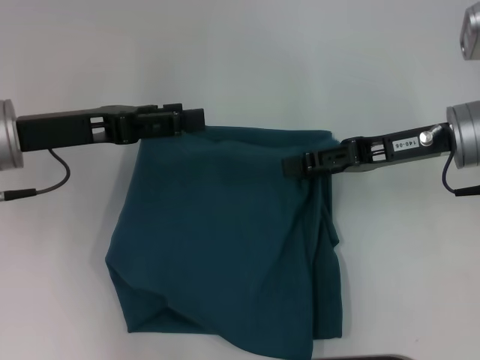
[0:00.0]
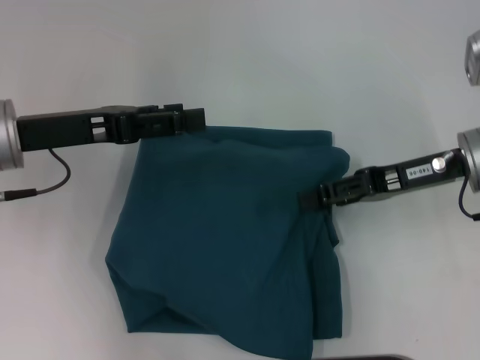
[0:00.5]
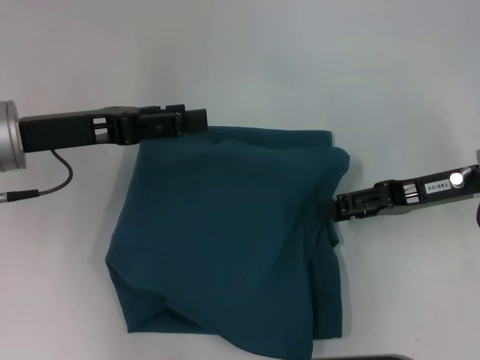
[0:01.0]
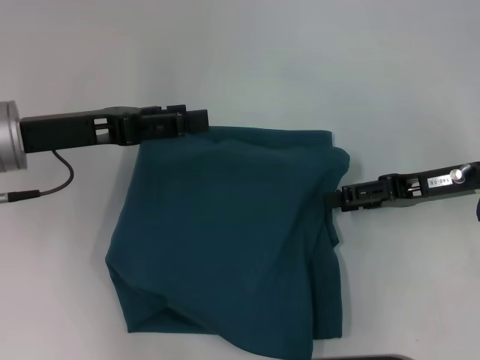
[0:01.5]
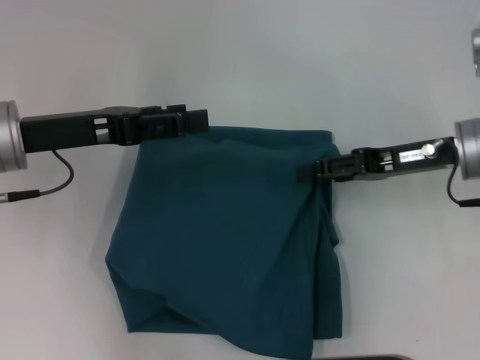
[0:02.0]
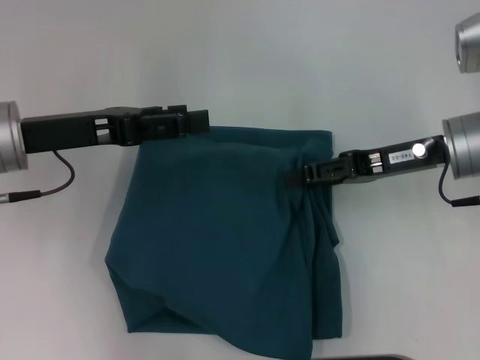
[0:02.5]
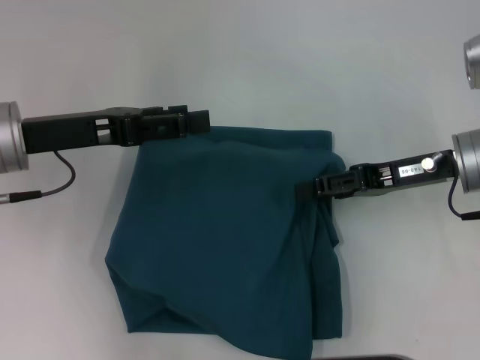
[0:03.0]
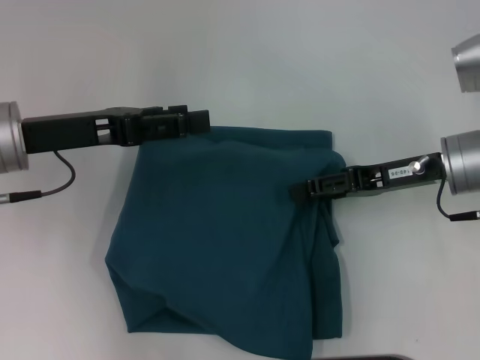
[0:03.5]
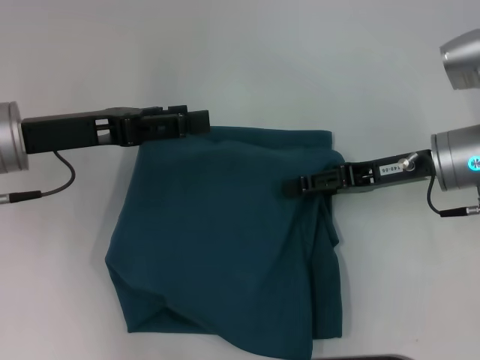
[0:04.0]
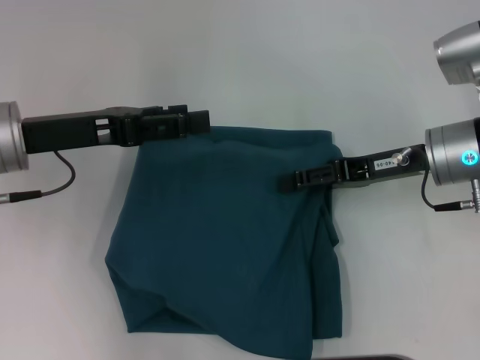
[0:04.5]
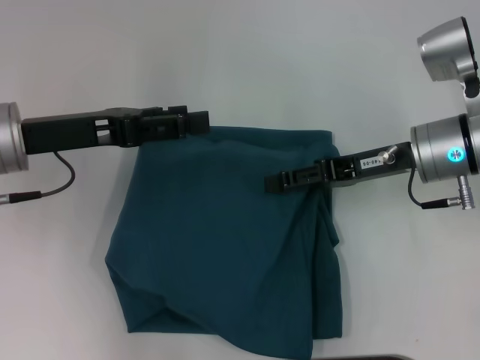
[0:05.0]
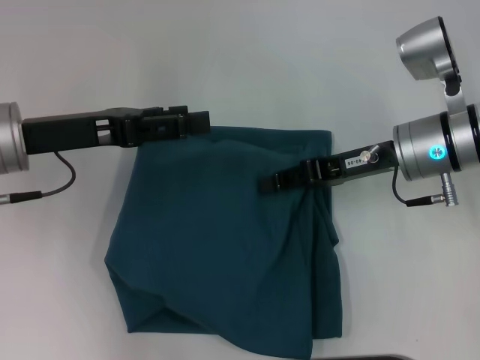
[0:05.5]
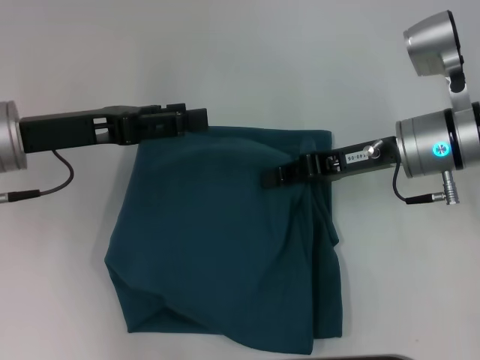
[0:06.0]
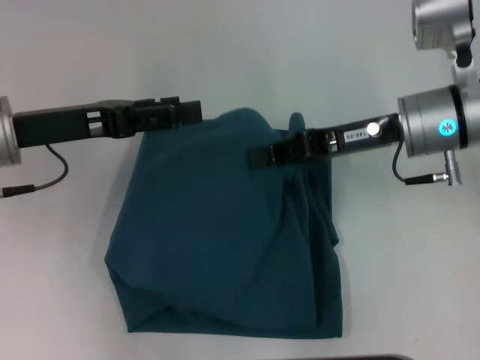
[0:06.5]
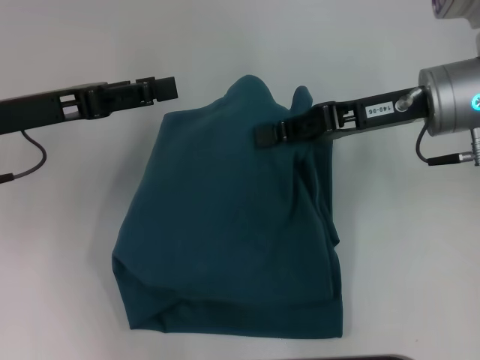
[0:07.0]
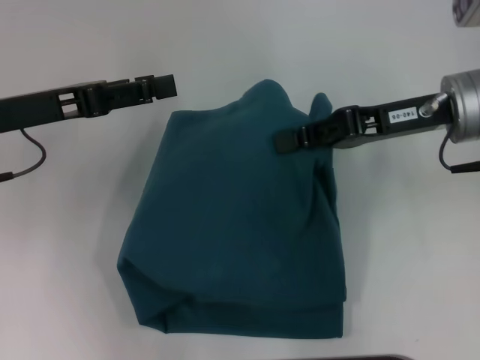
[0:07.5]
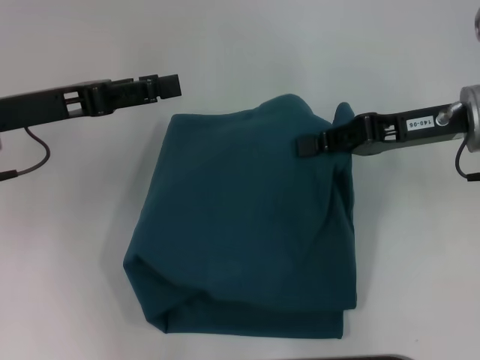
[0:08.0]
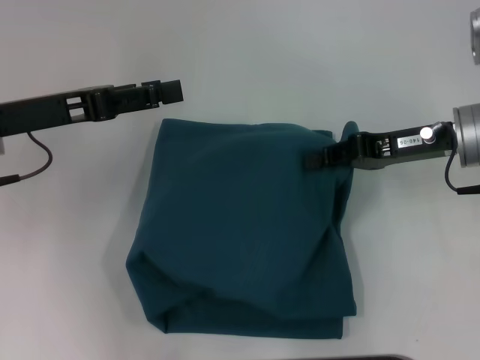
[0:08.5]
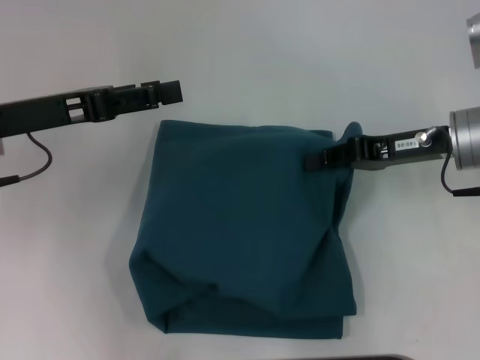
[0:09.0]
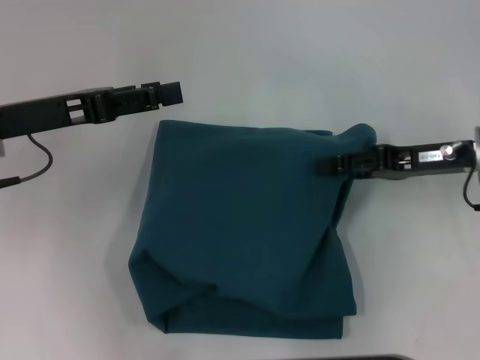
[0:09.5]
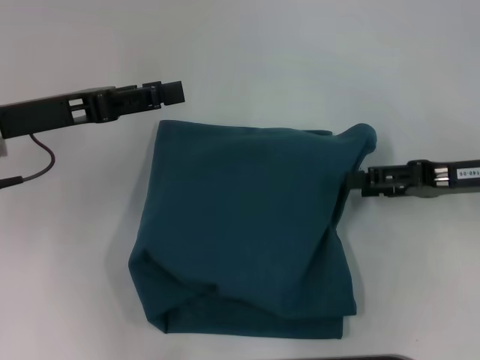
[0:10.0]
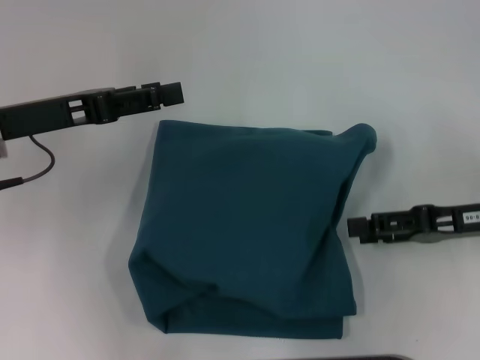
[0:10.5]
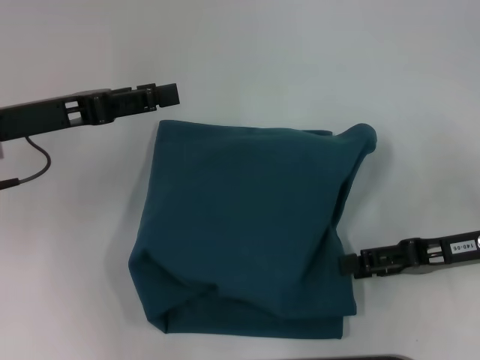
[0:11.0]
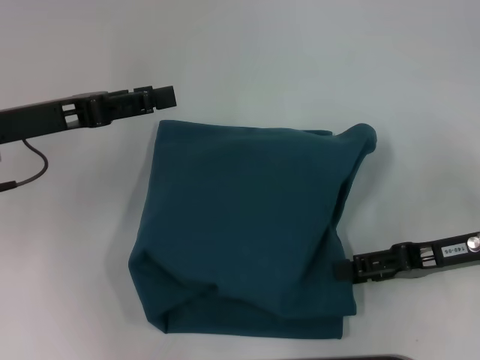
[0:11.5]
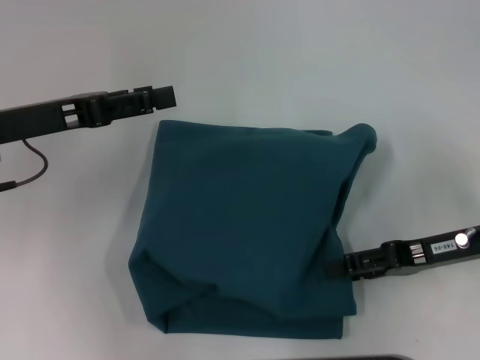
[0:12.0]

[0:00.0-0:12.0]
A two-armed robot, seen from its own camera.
0:00.0 to 0:04.0: The grippers move only a little.
0:04.0 to 0:06.0: The right gripper closes.
0:06.0 to 0:08.0: The right gripper changes place by about 5 cm.
0:08.0 to 0:10.0: The right gripper goes approximately 5 cm to the right, and opens its fingers.
0:10.0 to 0:12.0: The right gripper changes place by some 5 cm.

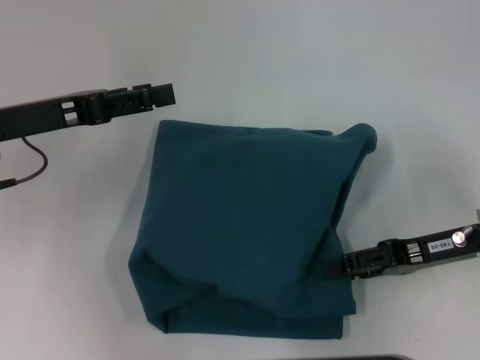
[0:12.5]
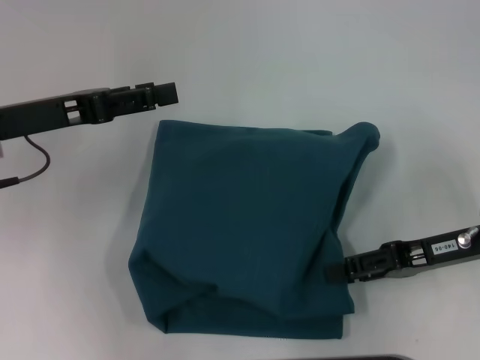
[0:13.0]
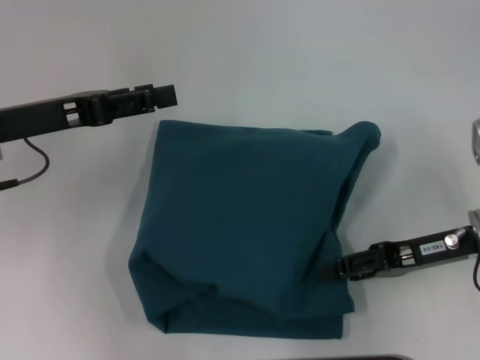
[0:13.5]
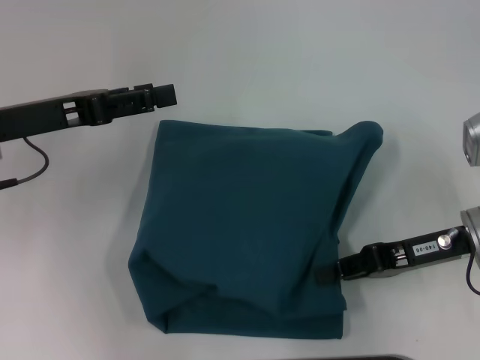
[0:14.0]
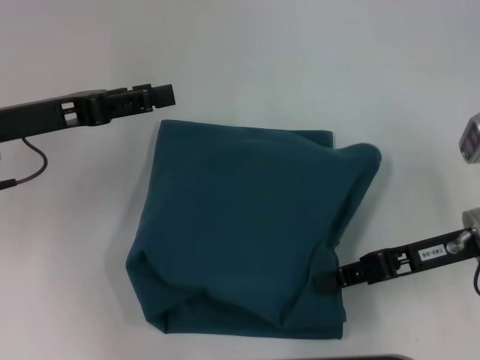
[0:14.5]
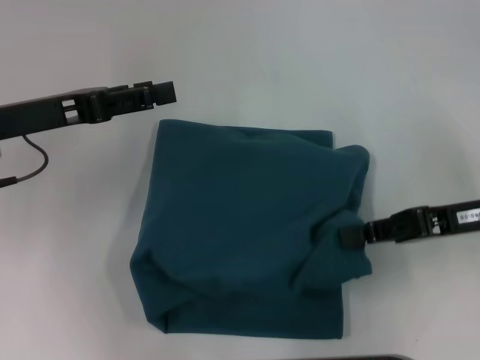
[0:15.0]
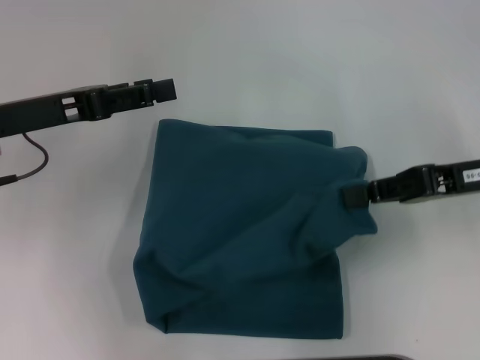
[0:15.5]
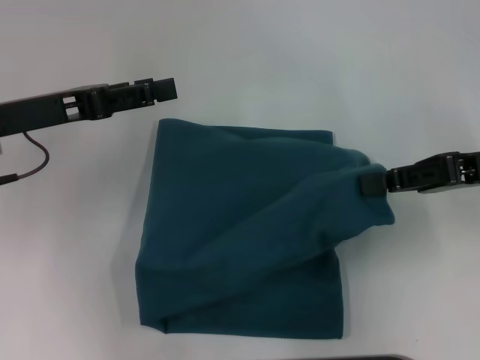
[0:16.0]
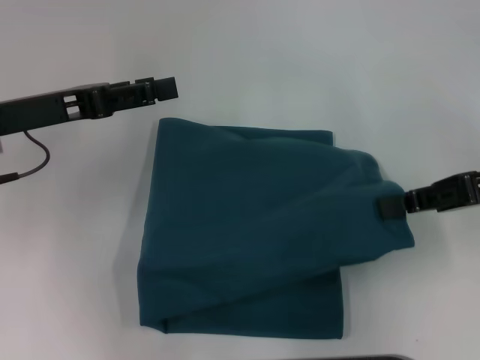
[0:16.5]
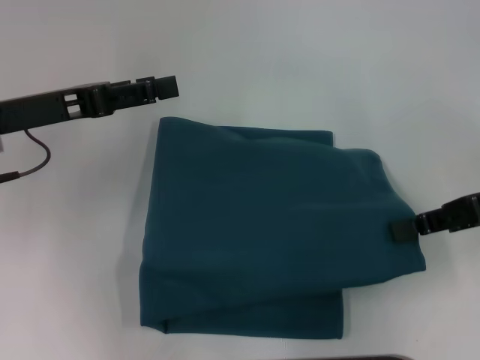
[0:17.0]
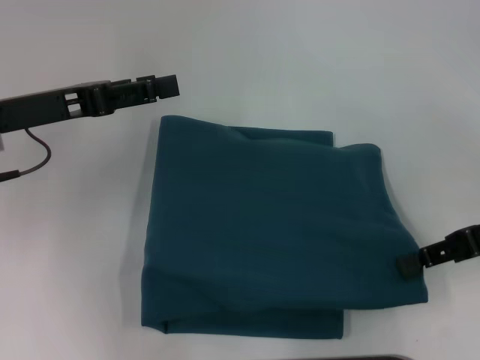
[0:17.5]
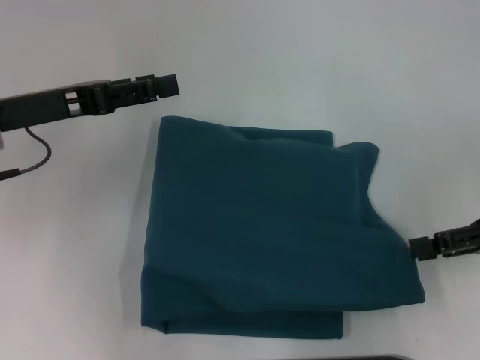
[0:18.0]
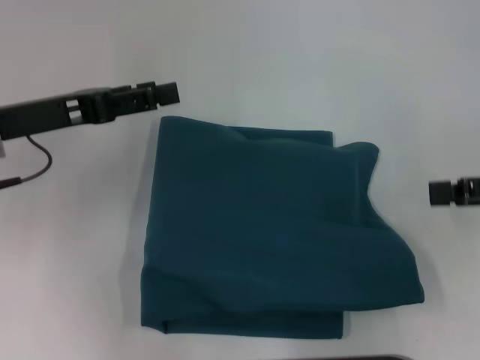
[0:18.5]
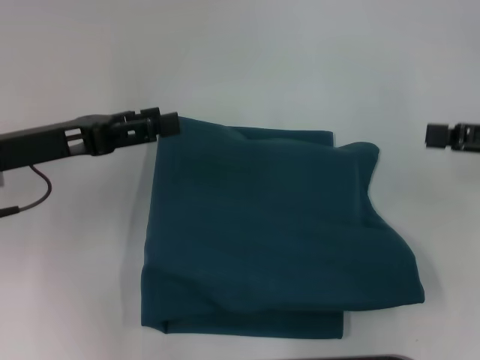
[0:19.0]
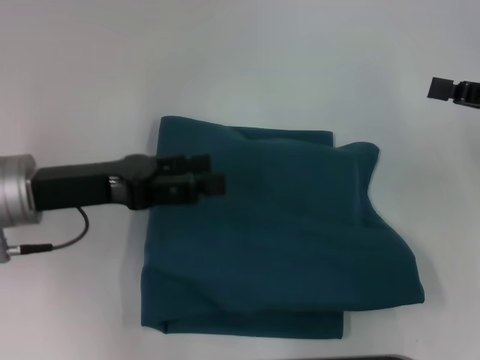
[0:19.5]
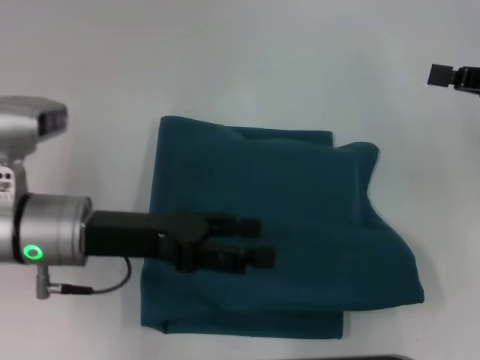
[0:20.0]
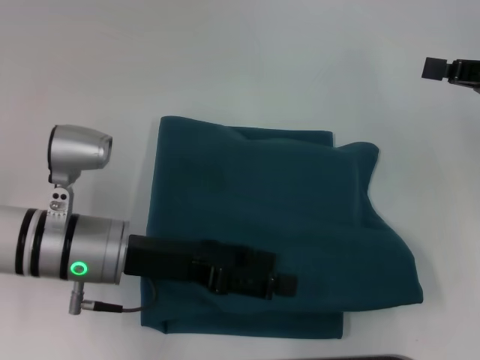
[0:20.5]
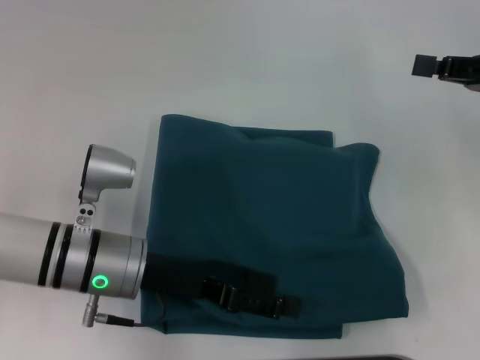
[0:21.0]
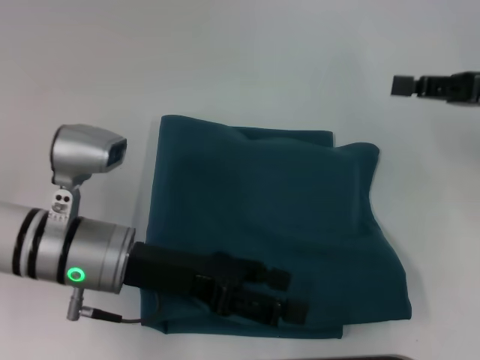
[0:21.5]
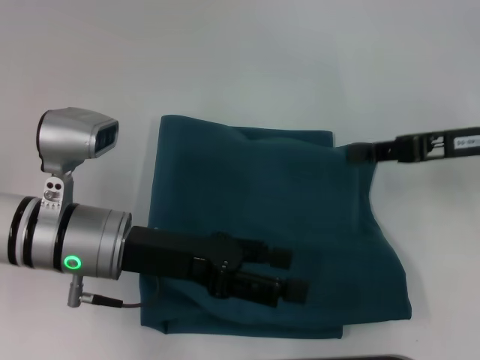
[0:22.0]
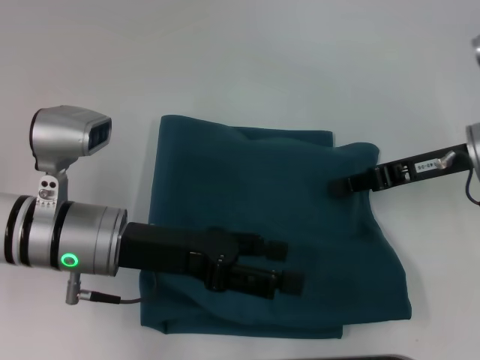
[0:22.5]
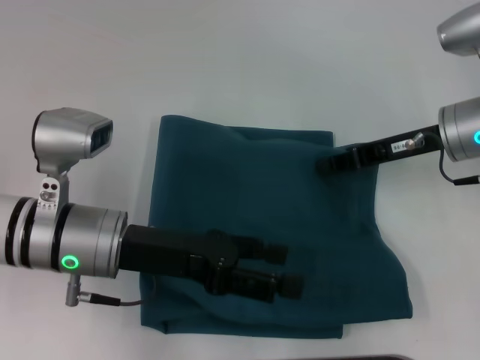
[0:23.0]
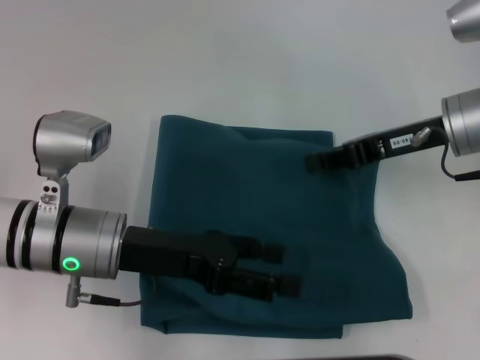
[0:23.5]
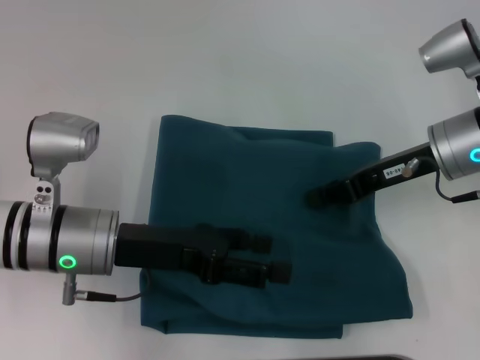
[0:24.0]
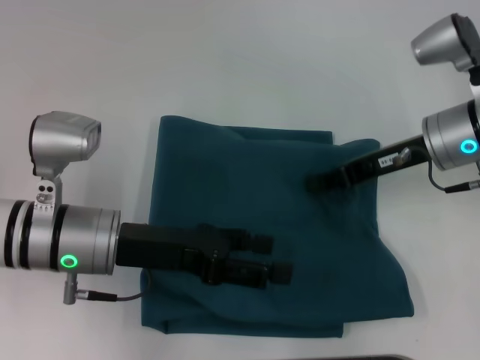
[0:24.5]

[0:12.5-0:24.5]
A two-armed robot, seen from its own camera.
0:12.5 to 0:14.5: The right gripper closes up.
0:14.5 to 0:16.5: The right gripper goes approximately 10 cm to the right and upward.
0:16.5 to 0:18.5: The right gripper is displaced to the right by roughly 5 cm, and opens up.
0:18.5 to 0:20.5: The right gripper ends up about 5 cm from where it was, and closes up; the left gripper travels to the right, downward and backward by roughly 15 cm.
0:20.5 to 0:22.5: The right gripper goes approximately 10 cm to the left and downward.
0:22.5 to 0:24.5: There are only small adjustments of the grippers.

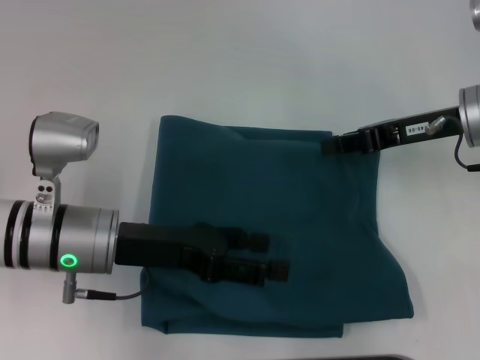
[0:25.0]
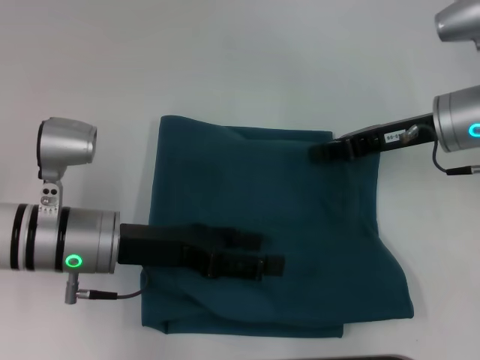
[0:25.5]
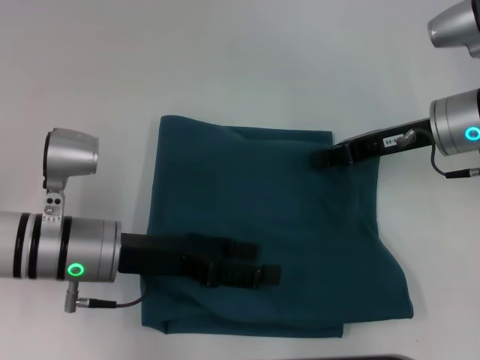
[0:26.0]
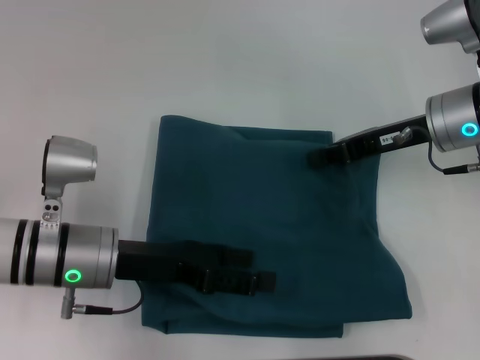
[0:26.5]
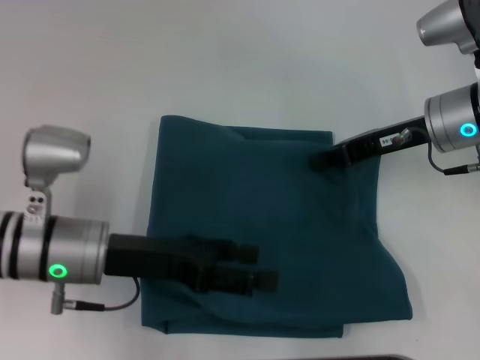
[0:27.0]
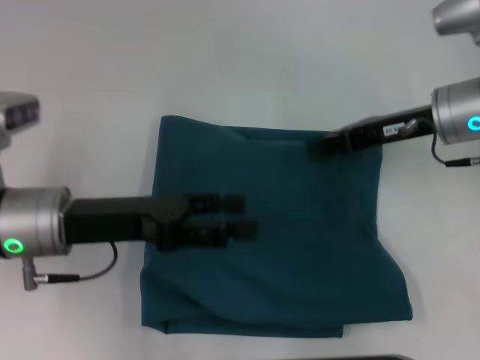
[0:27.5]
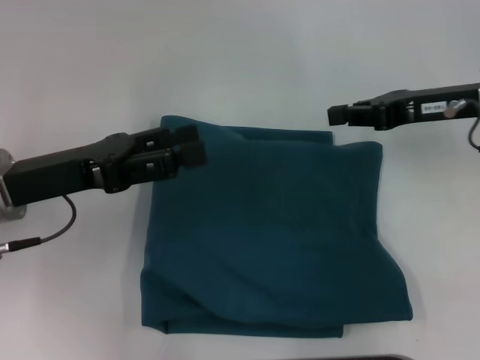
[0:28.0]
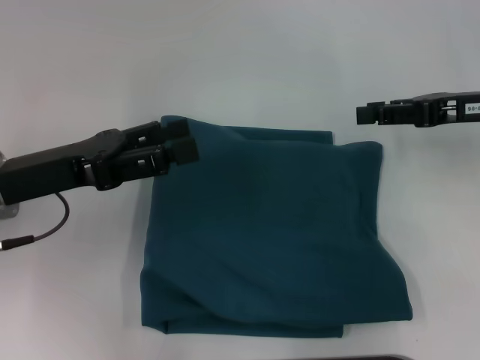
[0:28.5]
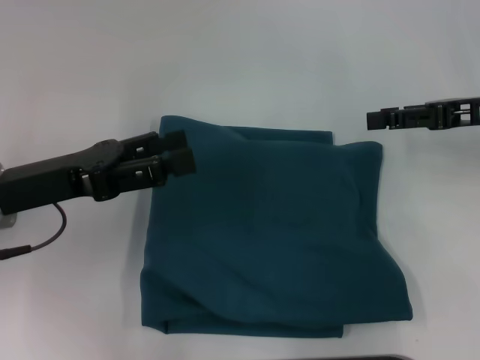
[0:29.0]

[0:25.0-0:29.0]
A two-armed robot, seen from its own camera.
0:25.0 to 0:27.0: The grippers move only a little.
0:27.0 to 0:29.0: The right gripper moves to the right, some 10 cm, and opens up; the left gripper heads to the left, covering approximately 5 cm.
